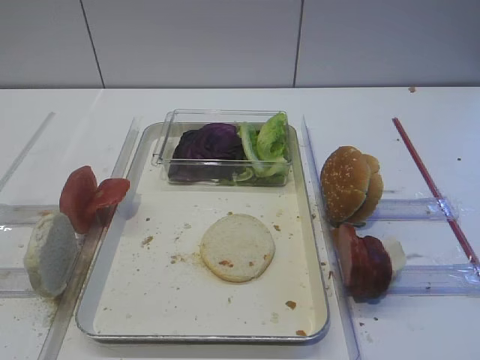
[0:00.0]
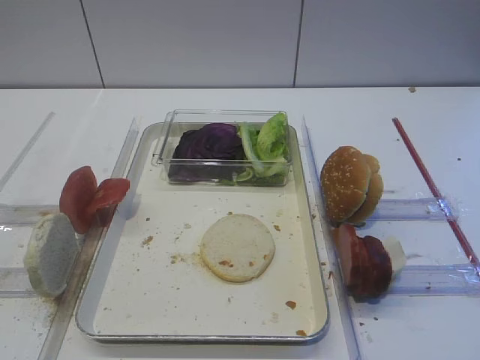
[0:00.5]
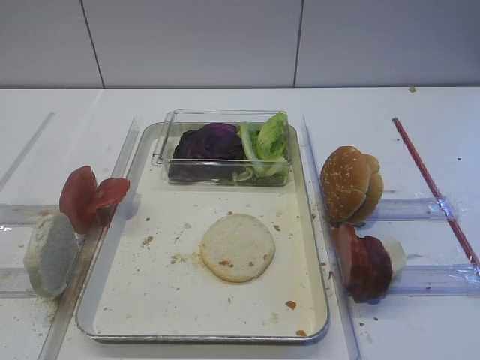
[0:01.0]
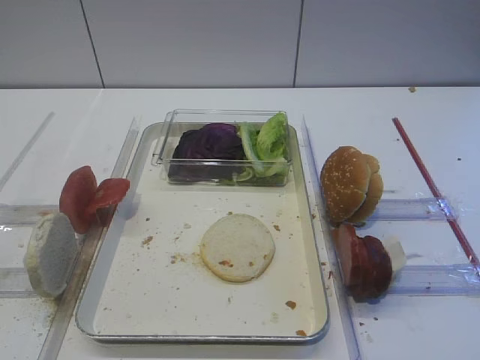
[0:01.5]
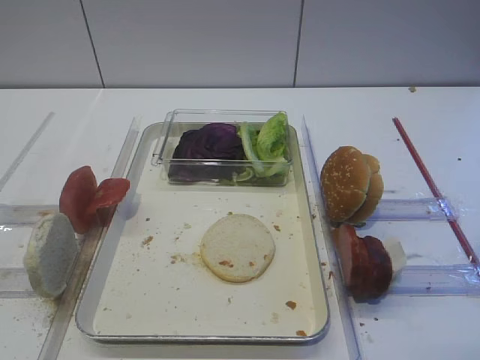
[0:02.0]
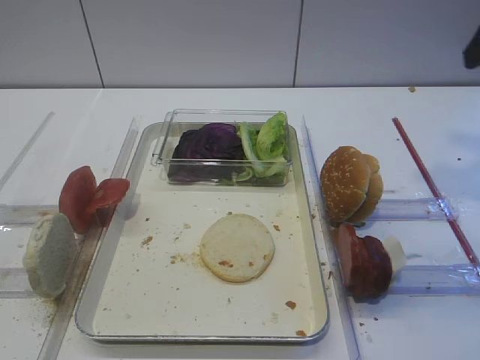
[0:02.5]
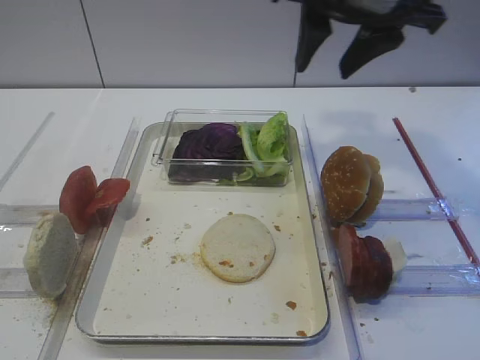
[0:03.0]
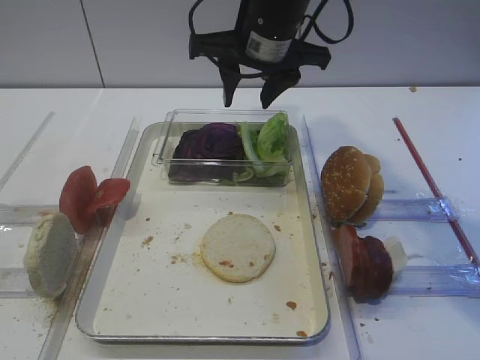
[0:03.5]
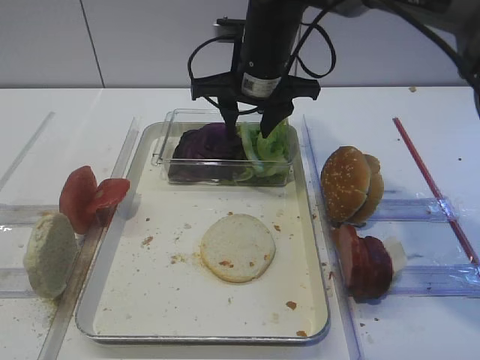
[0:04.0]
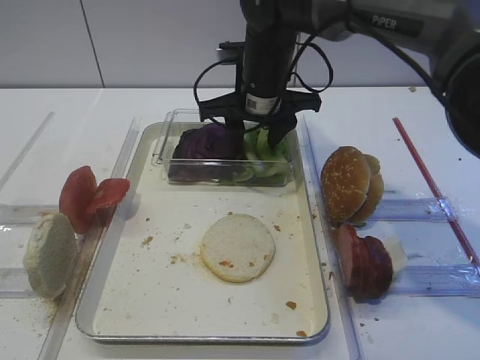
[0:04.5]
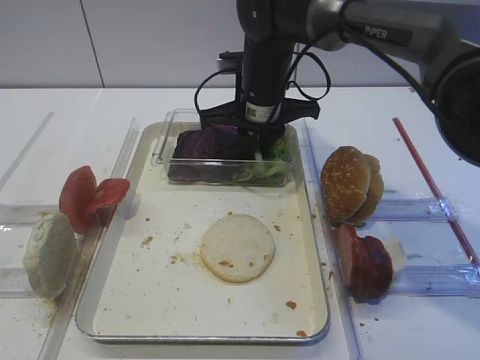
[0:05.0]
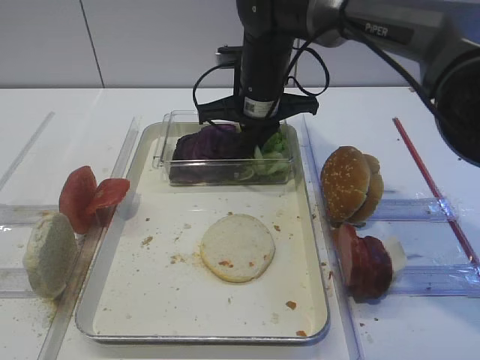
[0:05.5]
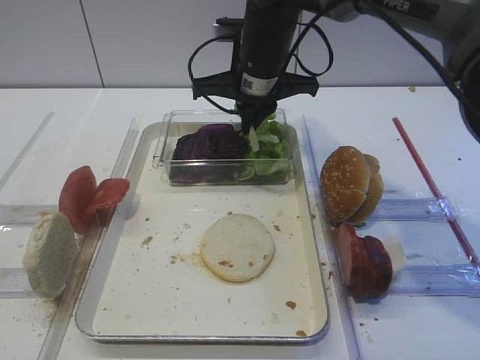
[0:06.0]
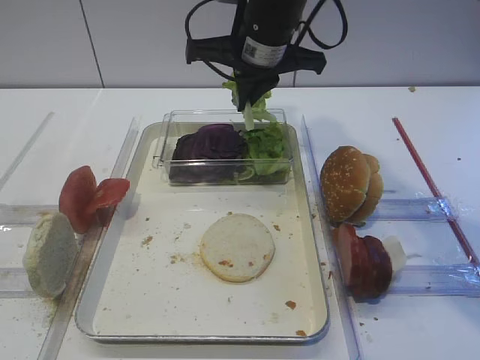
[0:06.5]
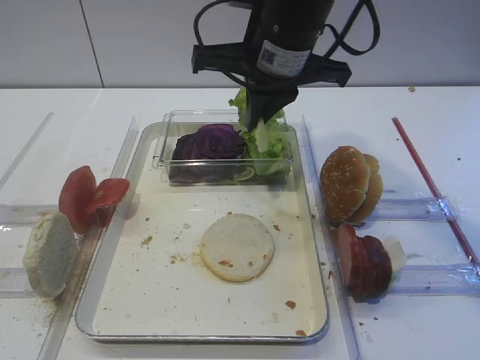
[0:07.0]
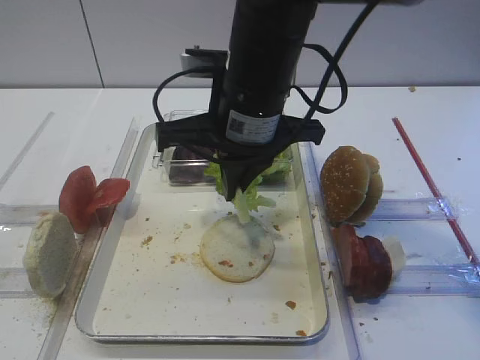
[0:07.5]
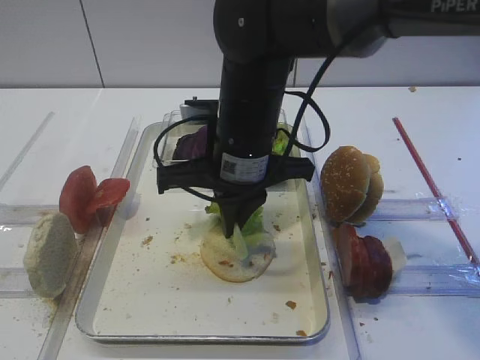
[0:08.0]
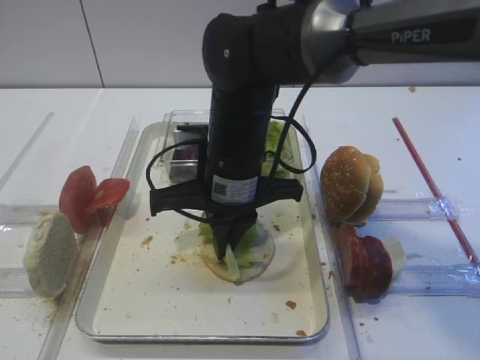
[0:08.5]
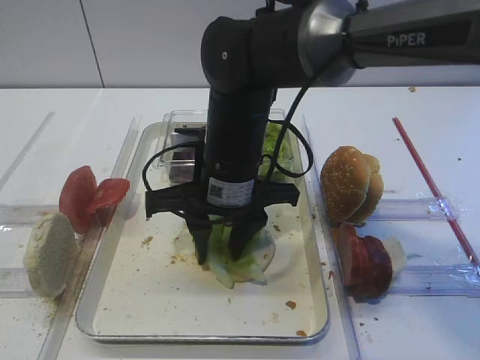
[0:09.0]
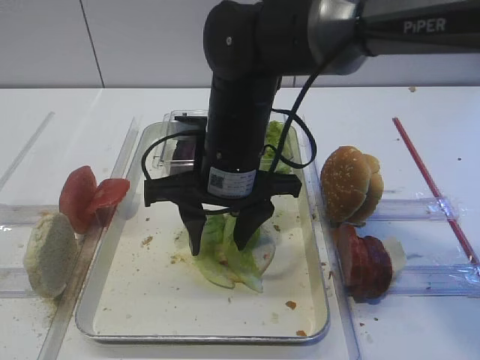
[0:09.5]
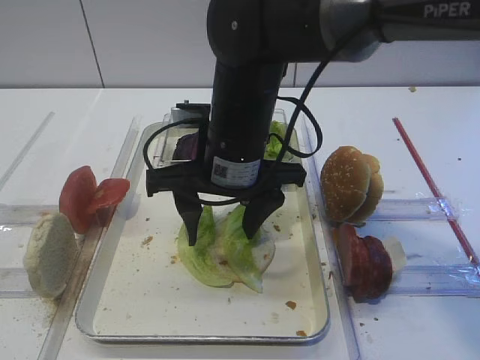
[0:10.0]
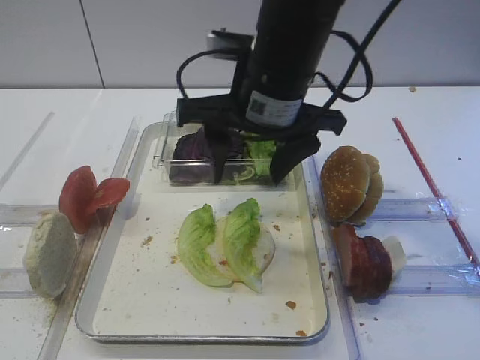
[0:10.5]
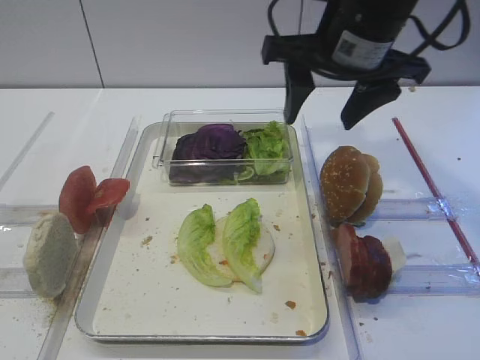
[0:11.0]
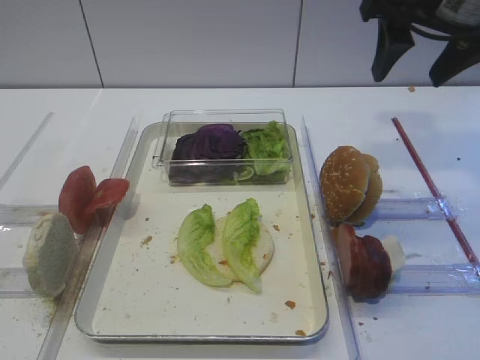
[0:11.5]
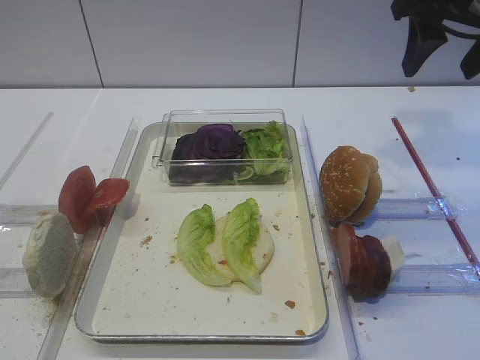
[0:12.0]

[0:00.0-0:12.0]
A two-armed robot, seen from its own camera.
Step, 0:00.0 to 0:06.0: Pick up the lettuce leaf with the right gripper.
Step, 0:06.5 to 0:10.5: Place the lettuce leaf on the bread slice with the right gripper.
0:02.0 to 0:04.0: The right gripper heads forward, to the left and downward, covering approximately 35 cm.
0:04.0 to 0:06.0: The right gripper closes.
0:06.0 to 0:08.0: The right gripper goes roughly 15 cm backward.
0:08.0 to 0:10.0: The right gripper opens.
0:10.0 to 0:12.0: The right gripper is displaced to the right and upward by approximately 25 cm.

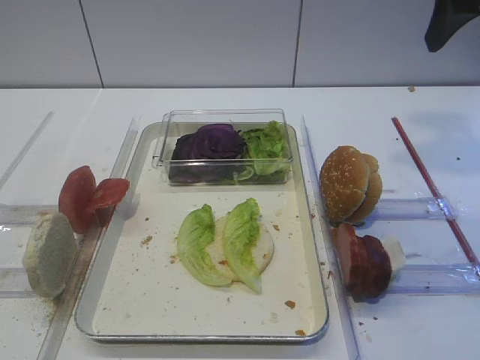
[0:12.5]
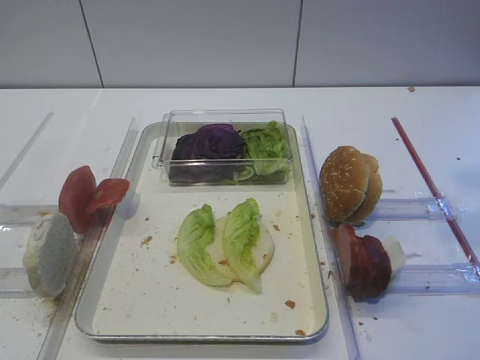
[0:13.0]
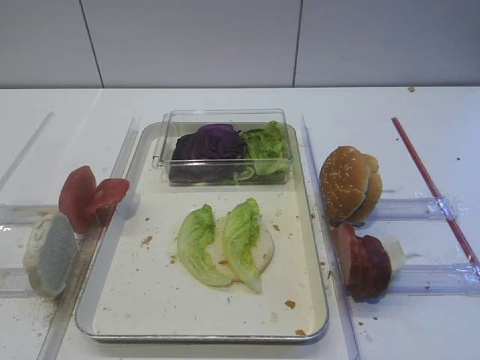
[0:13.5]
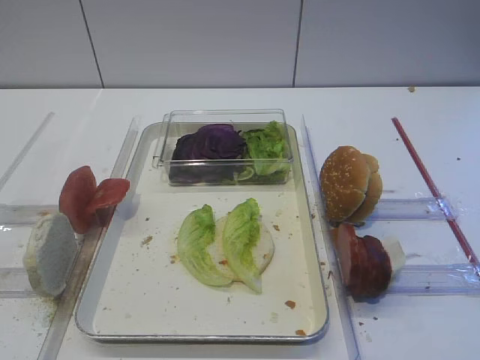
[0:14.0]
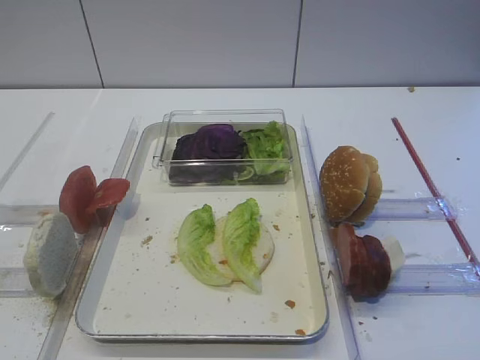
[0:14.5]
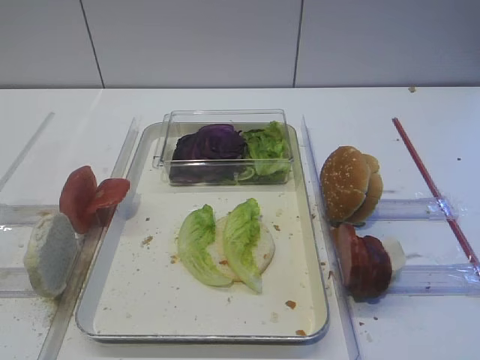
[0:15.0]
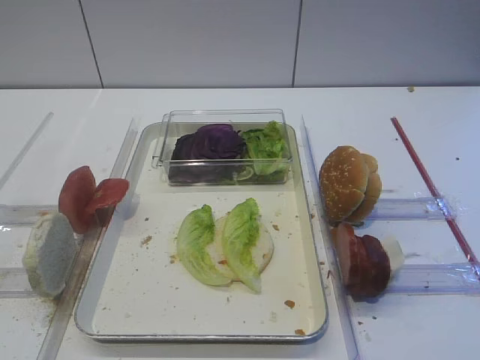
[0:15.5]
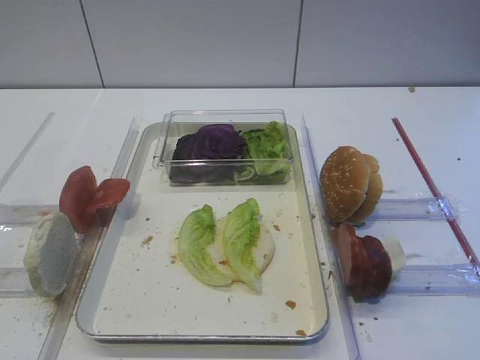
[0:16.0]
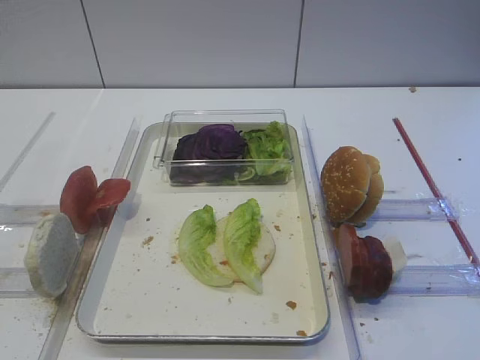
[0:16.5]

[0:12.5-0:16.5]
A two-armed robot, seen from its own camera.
0:12.5 to 0:14.5: The right gripper heads backward, covering approximately 35 cm.
0:14.5 to 0:16.5: The grippers make only small movements.

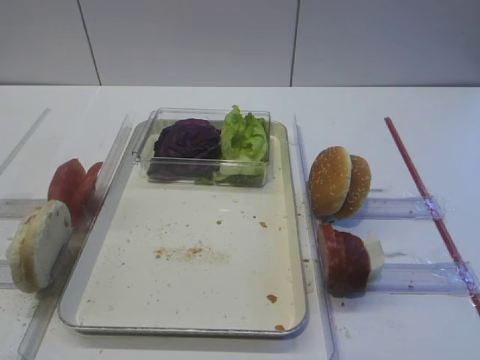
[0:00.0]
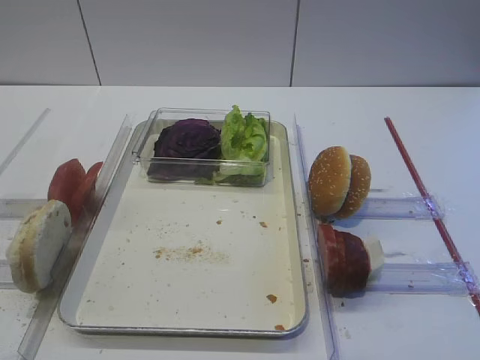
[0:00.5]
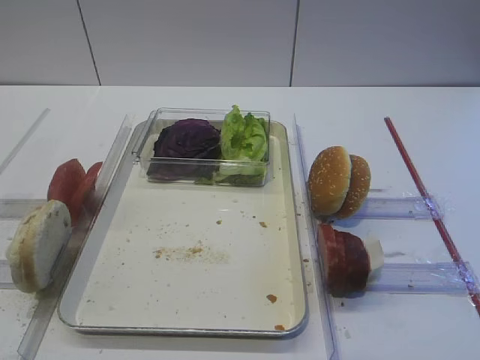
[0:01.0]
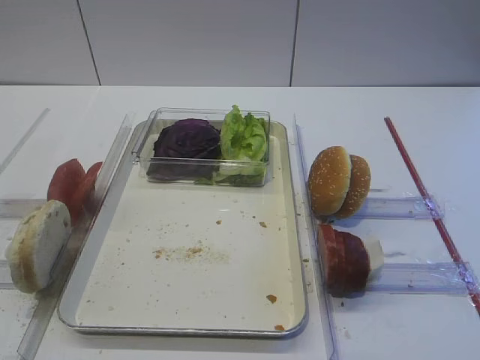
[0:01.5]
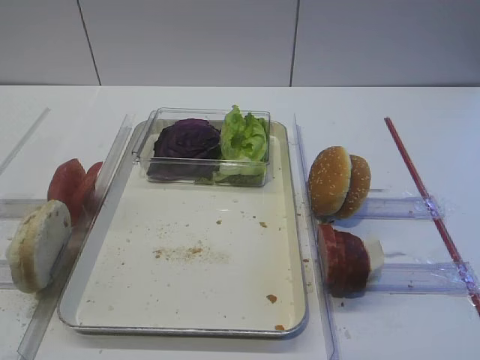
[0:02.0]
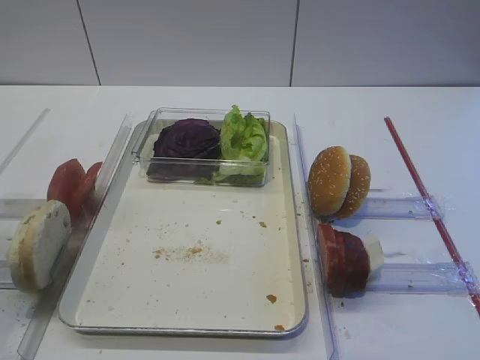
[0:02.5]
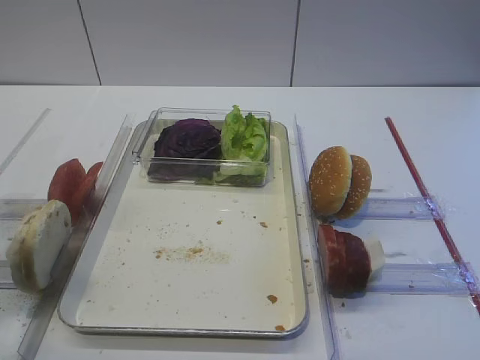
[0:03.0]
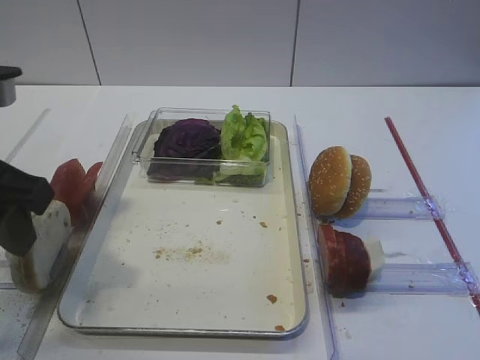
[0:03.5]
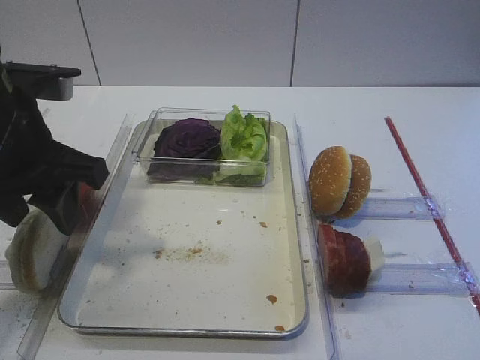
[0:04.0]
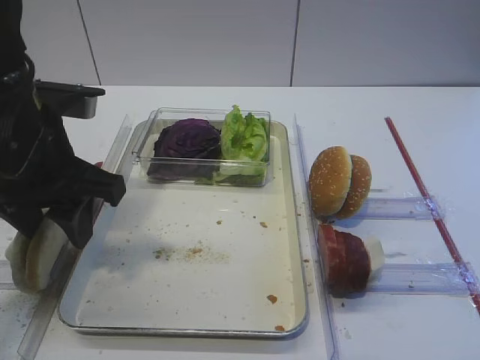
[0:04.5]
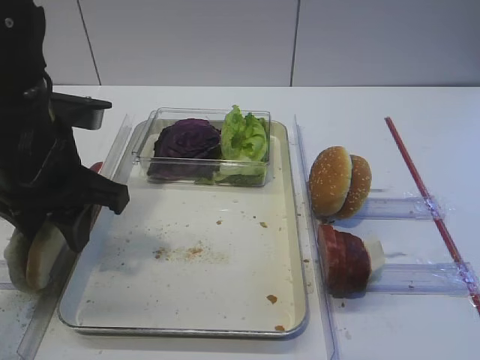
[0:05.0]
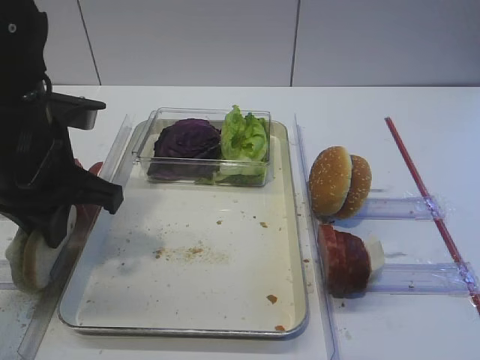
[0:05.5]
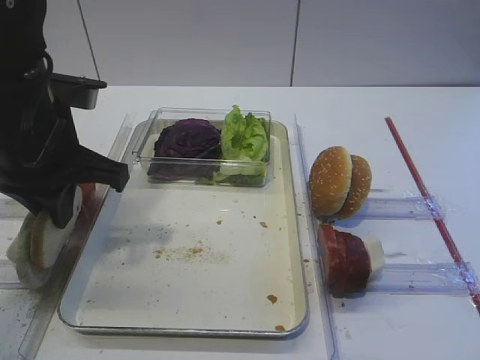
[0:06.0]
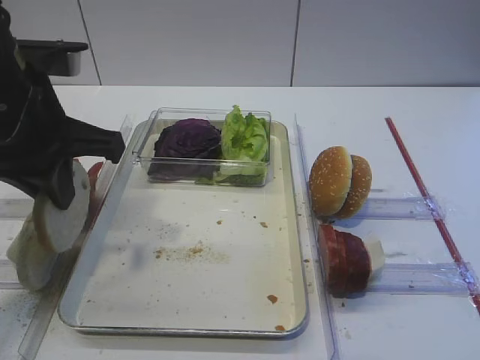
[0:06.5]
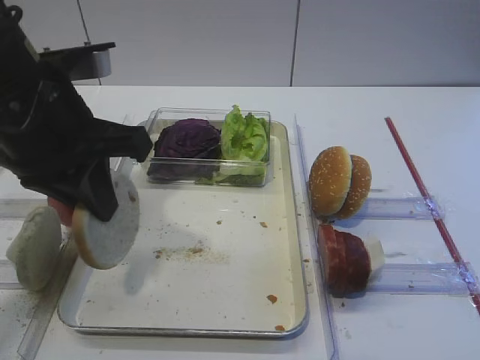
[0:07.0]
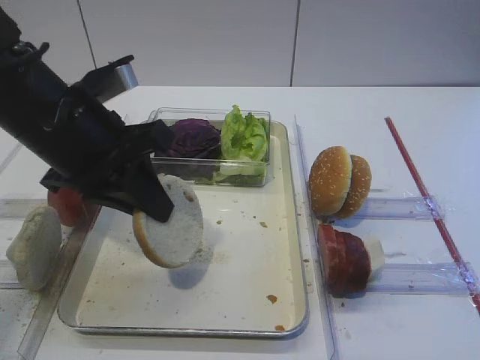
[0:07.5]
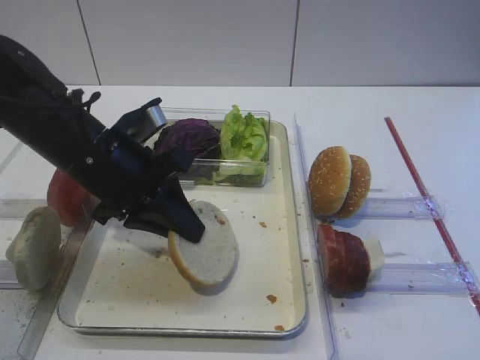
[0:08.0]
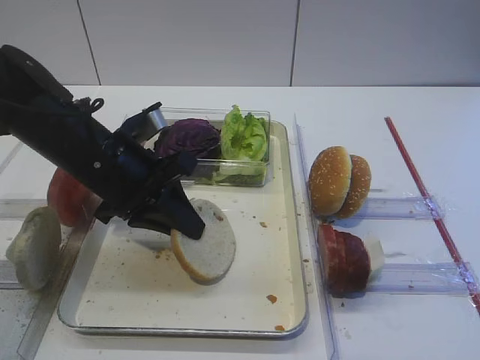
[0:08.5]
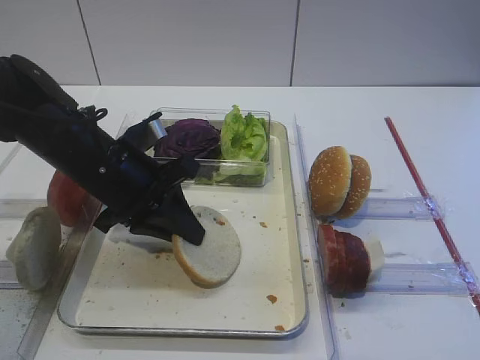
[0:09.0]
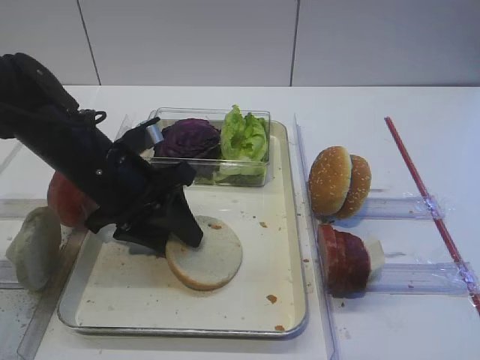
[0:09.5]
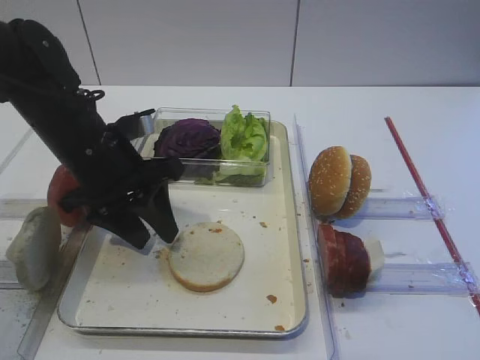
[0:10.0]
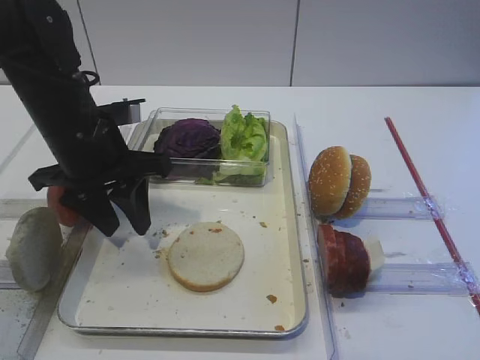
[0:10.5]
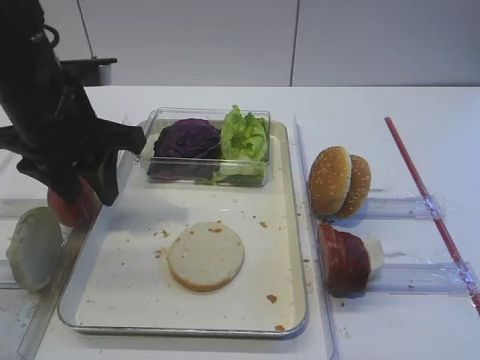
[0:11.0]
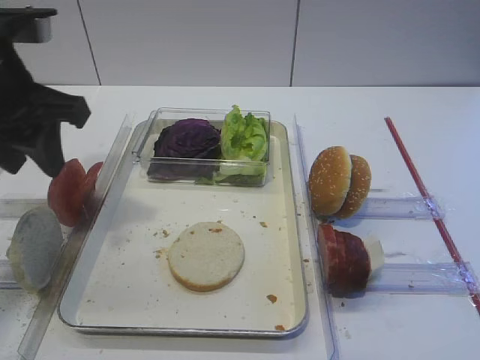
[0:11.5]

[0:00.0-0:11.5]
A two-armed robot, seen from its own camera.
Step, 0:00.0 to 0:06.5: Pick up the bread slice with the left gripper.
Step, 0:07.0 to 0:10.5: Place the bread slice on the tray with the left gripper.
0:02.0 to 0:04.0: The left gripper goes some 25 cm forward and to the right.
0:04.0 to 0:06.0: The left gripper closes up.
0:06.0 to 0:07.5: The right gripper closes its fingers.
0:07.5 to 0:09.5: The left gripper goes about 10 cm downward, and opens its fingers.
0:09.5 to 0:11.5: The left gripper is displaced upward and to the left by about 15 cm.
